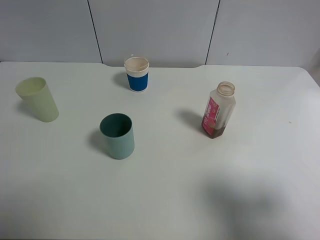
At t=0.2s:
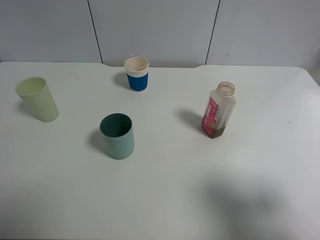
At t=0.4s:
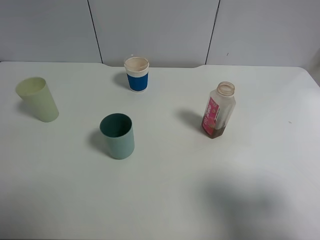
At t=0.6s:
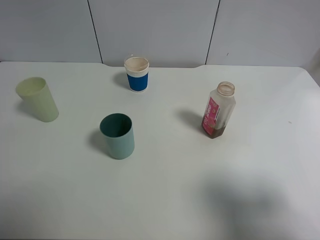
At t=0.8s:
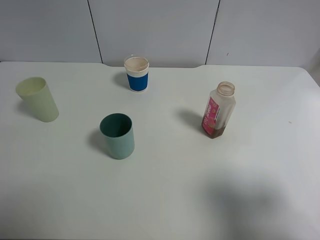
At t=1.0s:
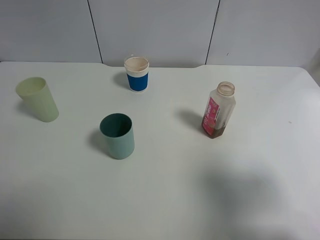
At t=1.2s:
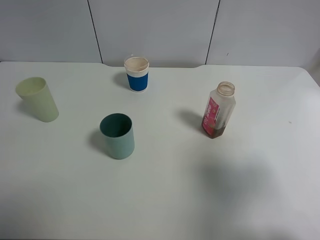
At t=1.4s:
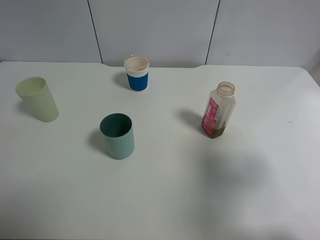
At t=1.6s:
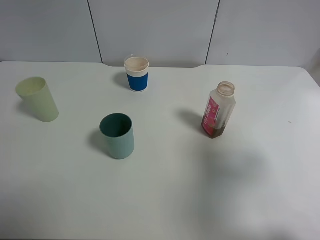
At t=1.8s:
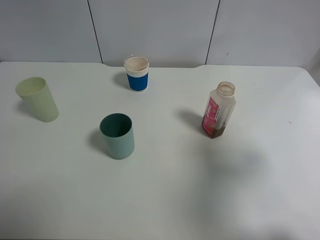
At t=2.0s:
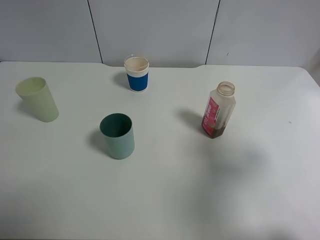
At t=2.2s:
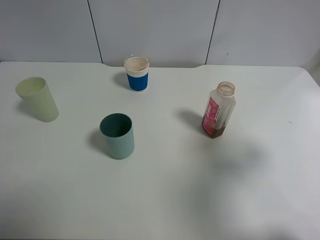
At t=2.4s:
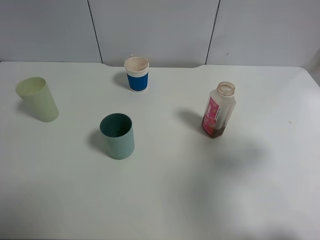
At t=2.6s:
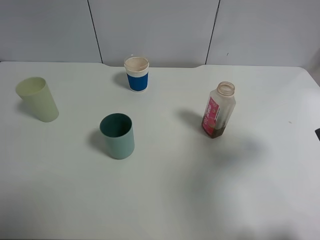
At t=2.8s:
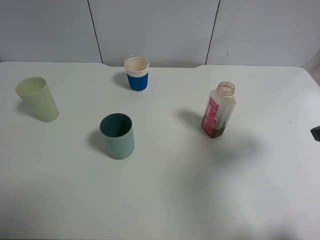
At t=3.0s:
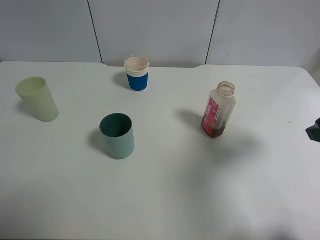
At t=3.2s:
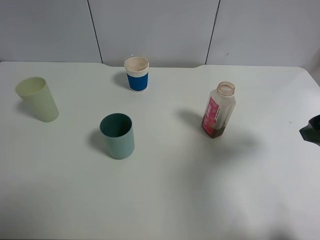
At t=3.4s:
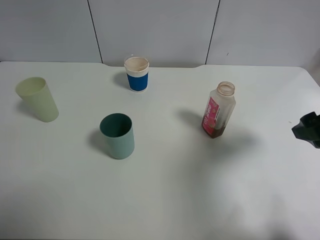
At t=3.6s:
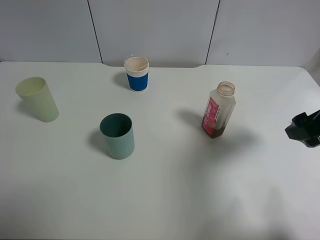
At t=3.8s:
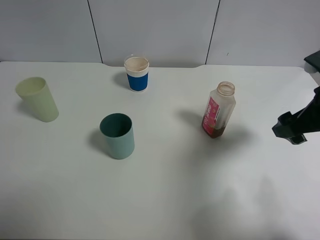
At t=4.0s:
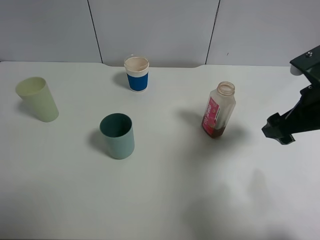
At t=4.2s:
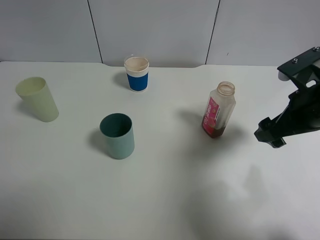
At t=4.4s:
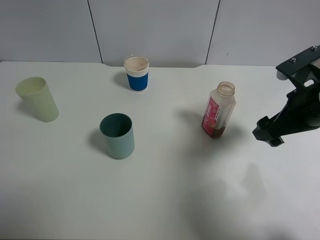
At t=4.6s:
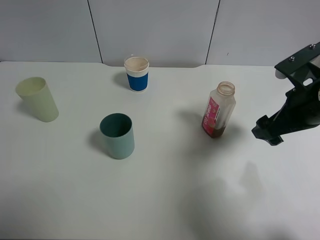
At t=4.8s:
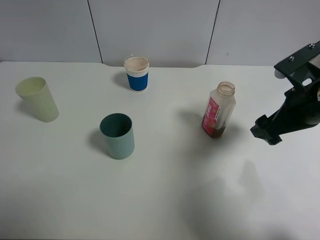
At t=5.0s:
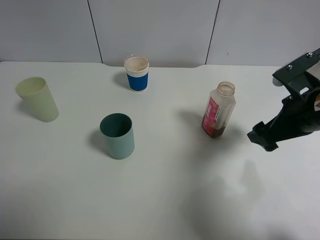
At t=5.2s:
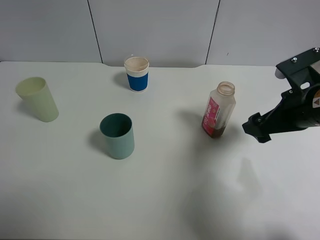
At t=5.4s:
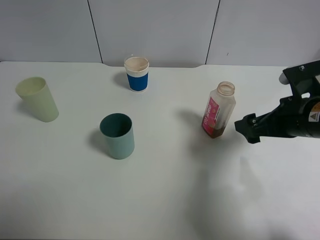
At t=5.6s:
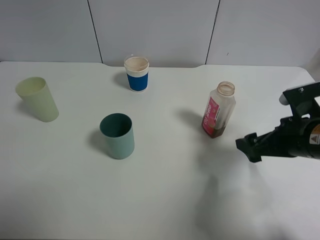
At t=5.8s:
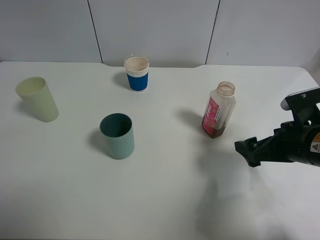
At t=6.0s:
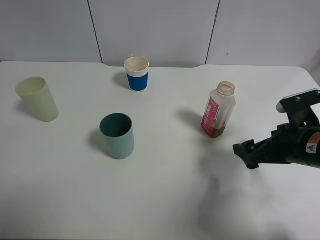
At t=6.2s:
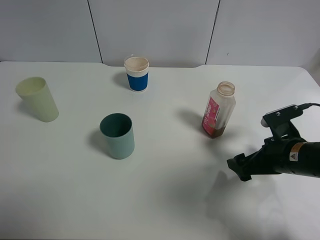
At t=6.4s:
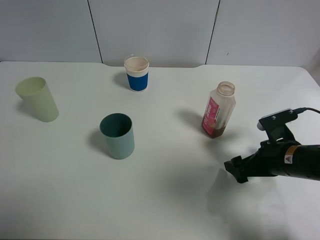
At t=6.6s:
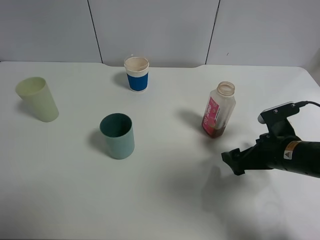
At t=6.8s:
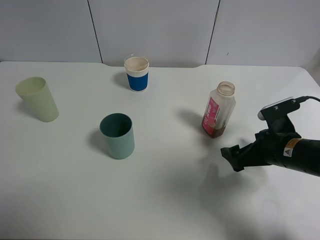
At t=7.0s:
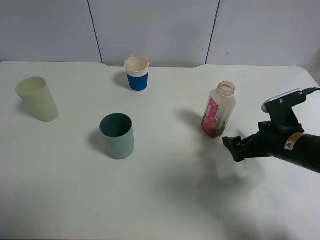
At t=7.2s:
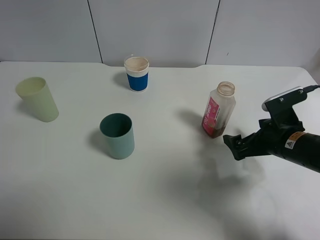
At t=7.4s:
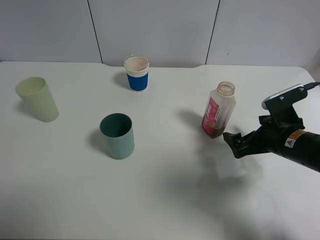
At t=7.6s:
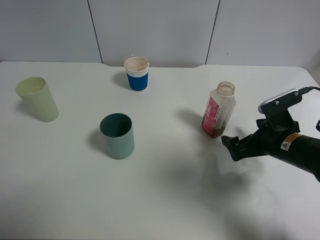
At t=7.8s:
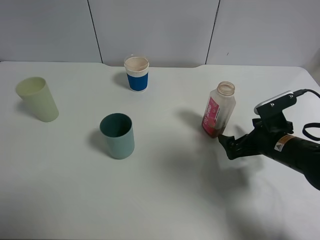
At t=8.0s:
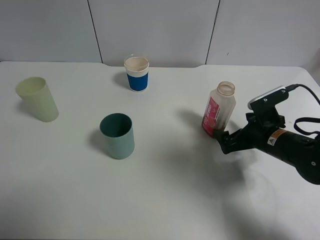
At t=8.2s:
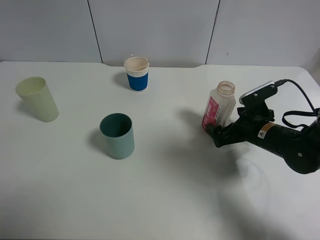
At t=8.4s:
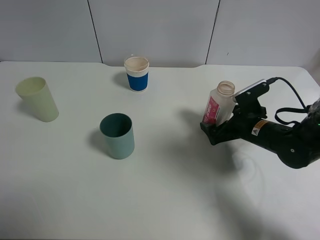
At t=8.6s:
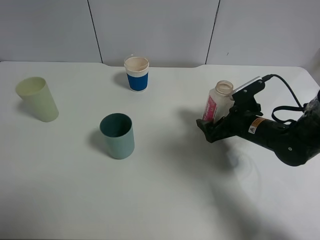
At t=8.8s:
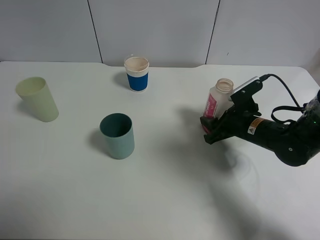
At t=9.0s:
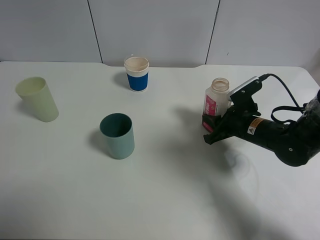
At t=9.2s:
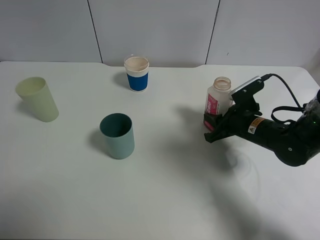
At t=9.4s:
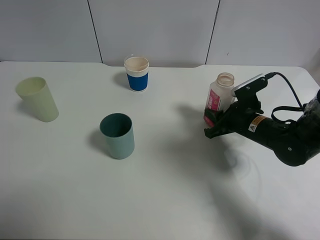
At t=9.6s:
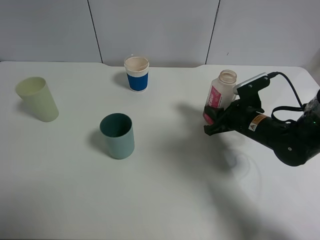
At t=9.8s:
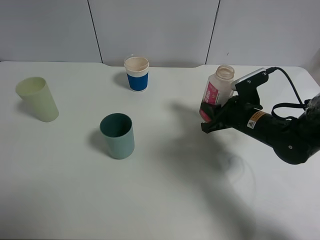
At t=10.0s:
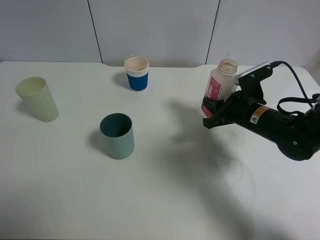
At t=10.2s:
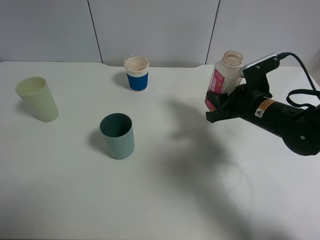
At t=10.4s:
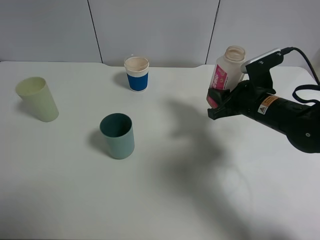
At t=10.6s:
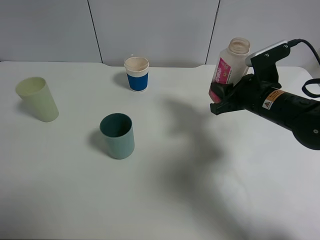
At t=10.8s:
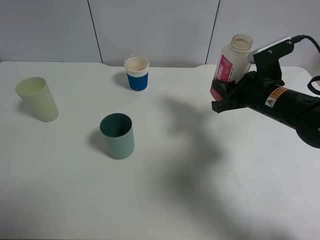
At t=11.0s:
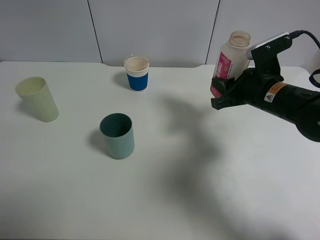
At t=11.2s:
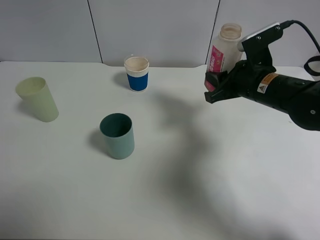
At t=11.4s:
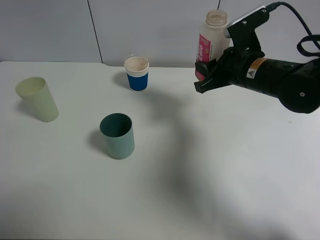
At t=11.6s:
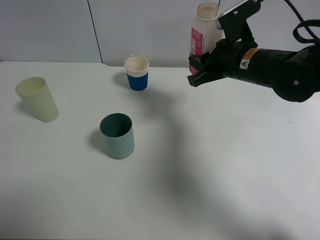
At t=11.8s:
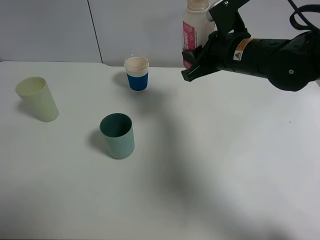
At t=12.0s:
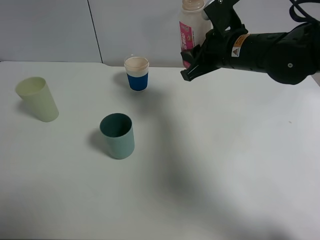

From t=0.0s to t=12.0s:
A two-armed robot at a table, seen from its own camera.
Task of the whole recording: use a clamp to hold the bottle of the drink, pour the beverage into a random cup, then clamp the cup containing the drink and pour the drink into another random cup.
Step, from t=0.0s to t=10.0s: Pick up the drink bottle with right gripper.
From t=0.0s to t=1.6s: The right gripper goes roughly 10 cm forward.
From t=1.6s to t=3.0s: The right gripper travels forward by approximately 5 cm.
From t=3.0s to t=4.4s: The right gripper heads forward and downward, covering roughly 10 cm.
From t=4.4s to t=6.0s: The right gripper is displaced downward by some 5 cm.
From t=6.0s to t=7.6s: The right gripper moves some 5 cm.
From t=7.6s to t=9.0s: The right gripper shifts roughly 5 cm forward, and closes up.
From t=9.0s to t=10.4s: The right gripper moves upward, about 5 cm.
From t=10.4s to t=12.0s: The right gripper goes roughly 10 cm upward and to the left.

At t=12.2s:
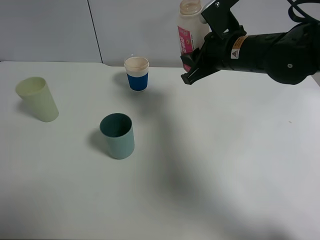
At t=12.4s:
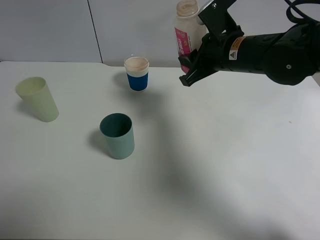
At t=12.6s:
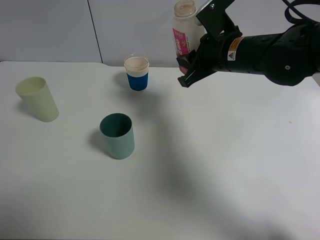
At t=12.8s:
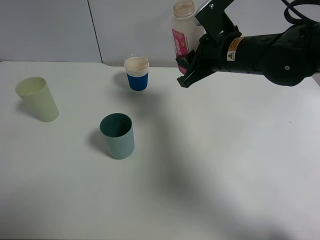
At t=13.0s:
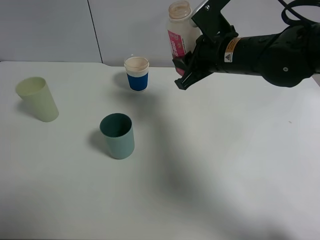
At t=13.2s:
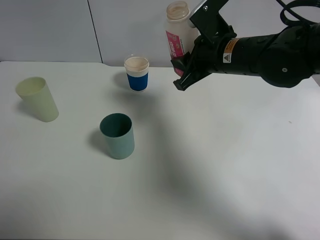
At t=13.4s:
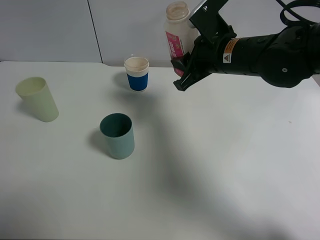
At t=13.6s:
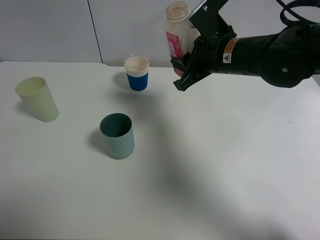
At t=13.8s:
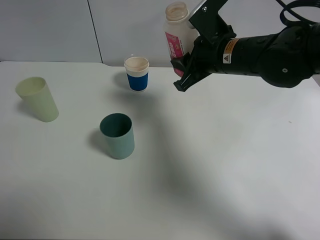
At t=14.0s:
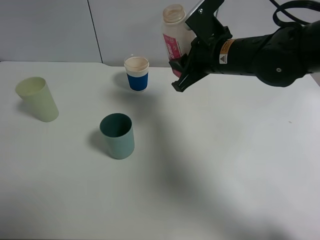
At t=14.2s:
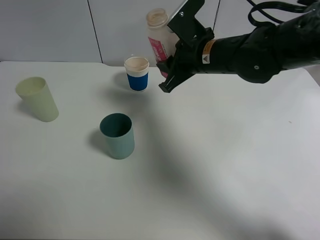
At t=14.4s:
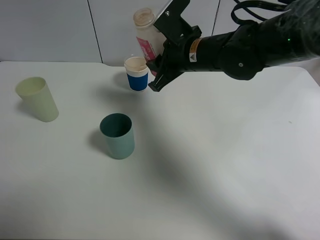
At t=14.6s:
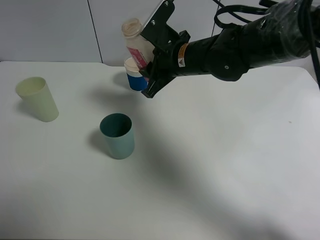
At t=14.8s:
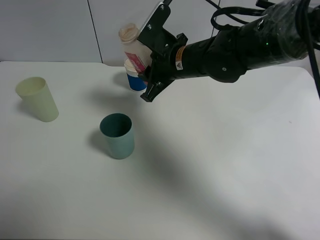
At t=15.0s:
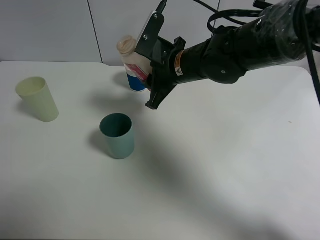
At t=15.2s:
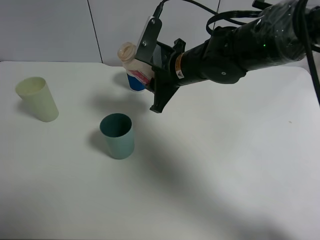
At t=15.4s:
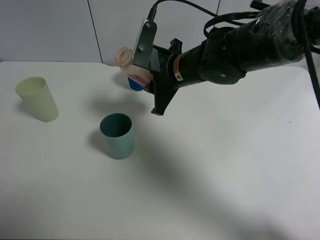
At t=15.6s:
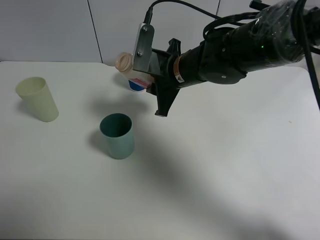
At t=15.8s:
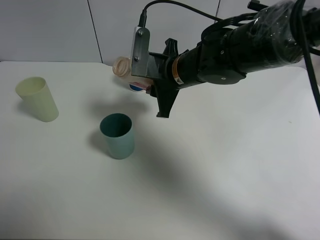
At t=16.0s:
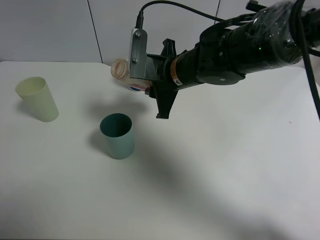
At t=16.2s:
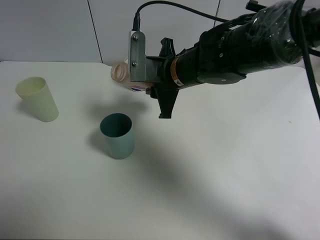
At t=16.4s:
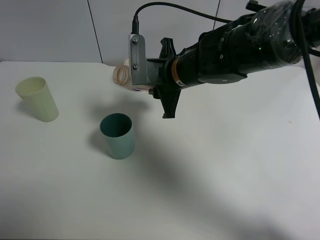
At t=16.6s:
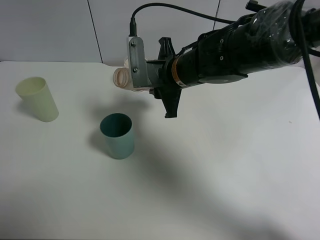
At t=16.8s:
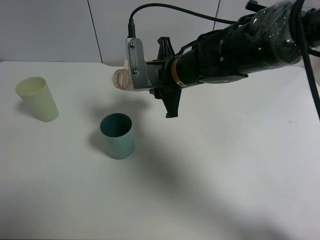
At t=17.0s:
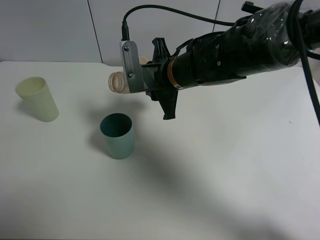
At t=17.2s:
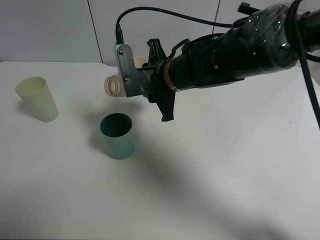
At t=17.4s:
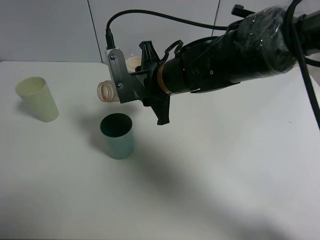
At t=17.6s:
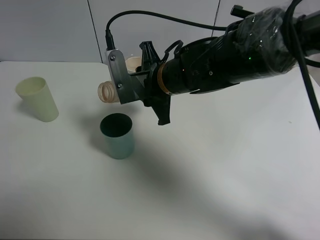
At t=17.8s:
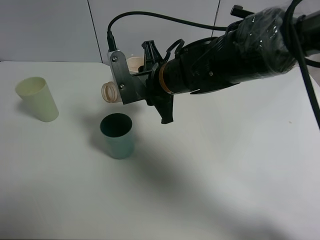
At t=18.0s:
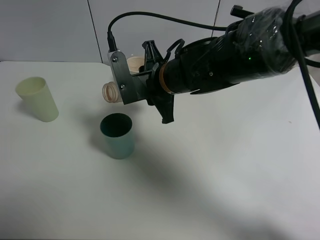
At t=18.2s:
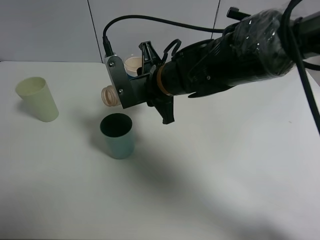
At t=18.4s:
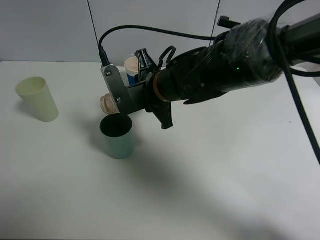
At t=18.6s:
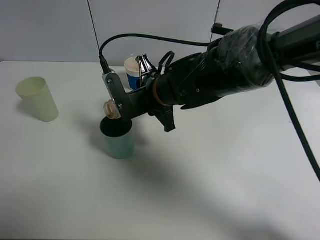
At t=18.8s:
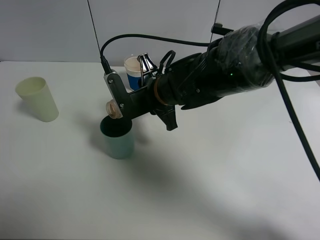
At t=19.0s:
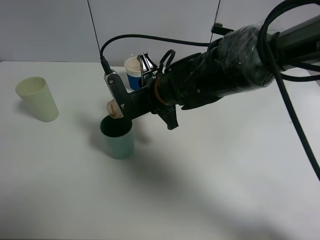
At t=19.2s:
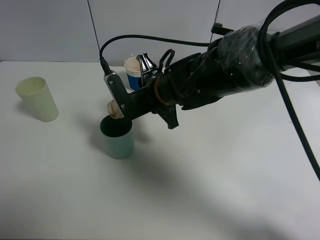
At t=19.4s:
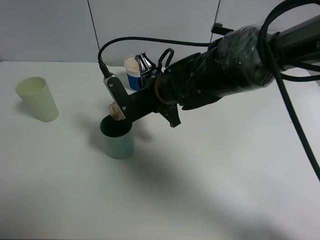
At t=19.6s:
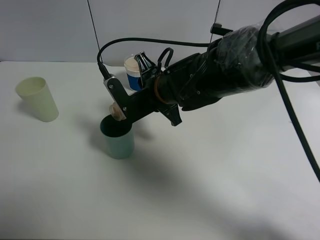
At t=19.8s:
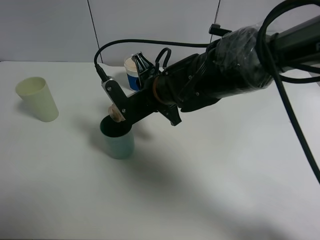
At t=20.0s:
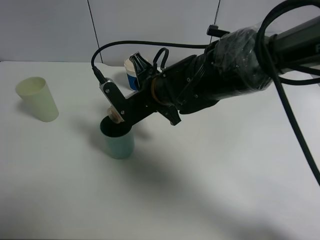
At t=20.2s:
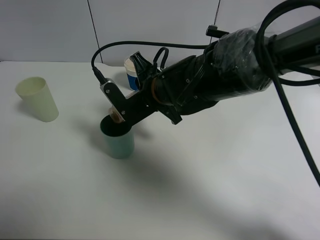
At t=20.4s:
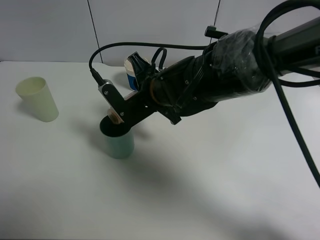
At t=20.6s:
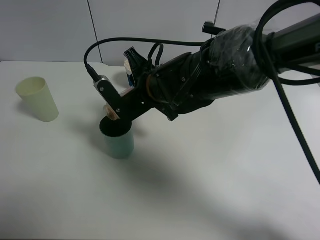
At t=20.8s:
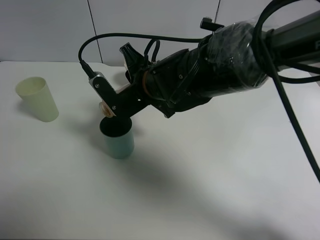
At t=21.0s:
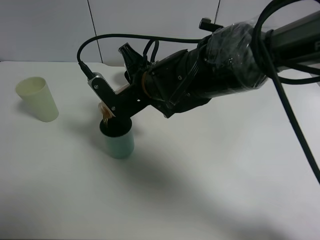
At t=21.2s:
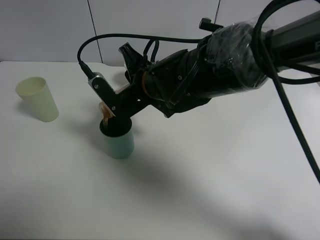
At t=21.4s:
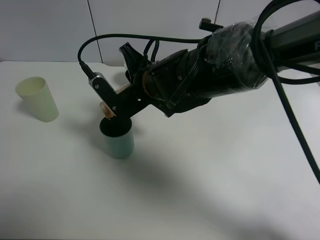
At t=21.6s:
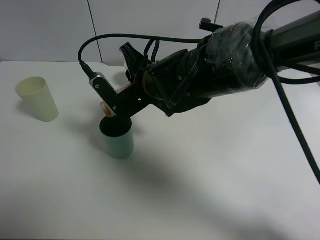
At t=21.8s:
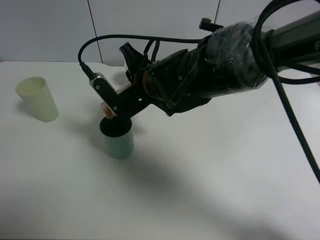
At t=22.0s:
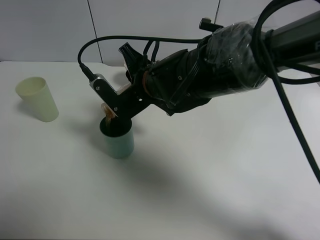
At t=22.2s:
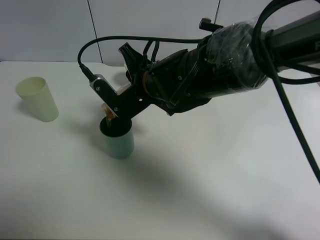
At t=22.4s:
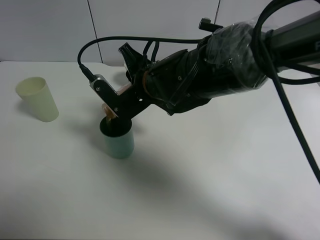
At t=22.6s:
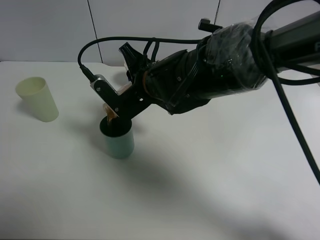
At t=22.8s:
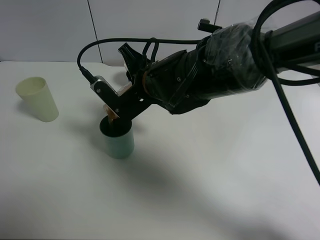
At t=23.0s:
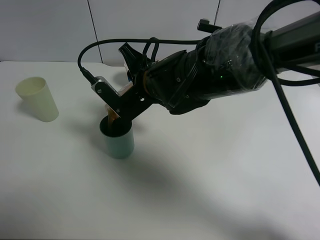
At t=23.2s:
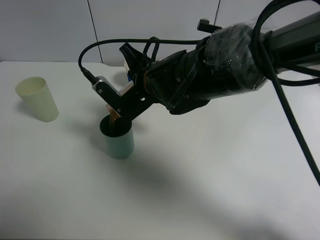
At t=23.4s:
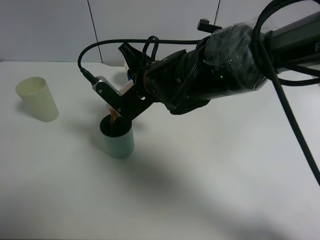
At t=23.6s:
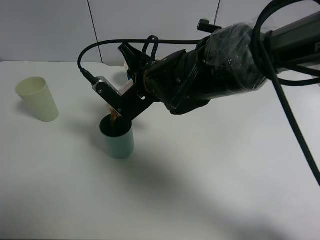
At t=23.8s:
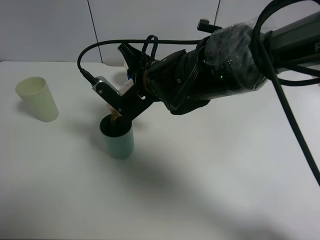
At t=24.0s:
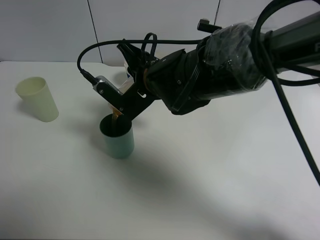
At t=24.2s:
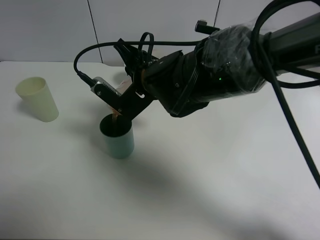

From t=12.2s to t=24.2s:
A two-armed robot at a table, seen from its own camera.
Task of the whole recording: use a clamp to hold the bottle of the drink, pour the beverage into a random cup, then clamp the cup containing the drink and pour the drink into another random cup.
From t=12.2s to t=13.8s: The grippers stay close to where they were, moving slightly.
From t=13.8s to t=15.2s: The right gripper moves to the left, roughly 5 cm.
From t=16.6s to t=18.2s: The grippers make only small movements.
From t=18.2s to t=19.8s: The grippers move only a little.
From t=19.8s to t=21.2s: The grippers move only a little.
From t=21.2s to t=22.6s: The two grippers keep their place.
From t=22.6s to t=24.2s: There are only small adjustments of the grippers.
